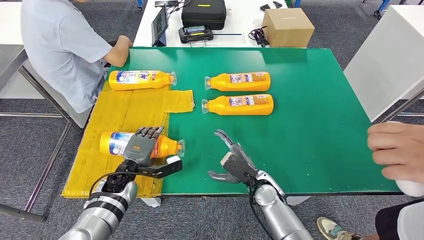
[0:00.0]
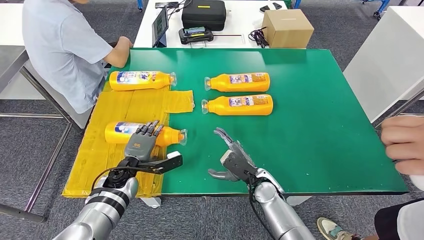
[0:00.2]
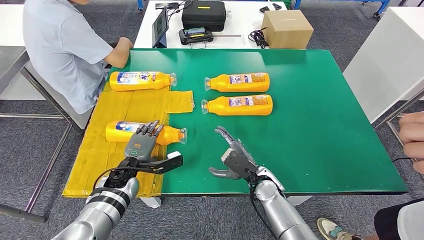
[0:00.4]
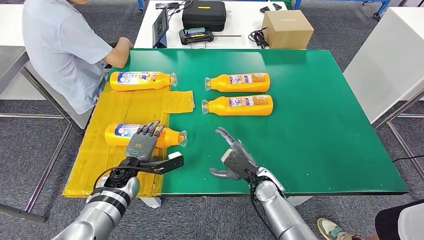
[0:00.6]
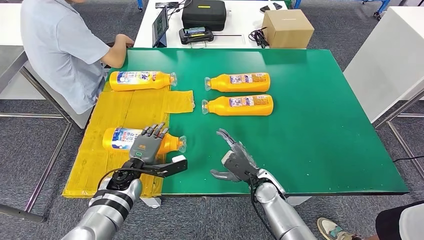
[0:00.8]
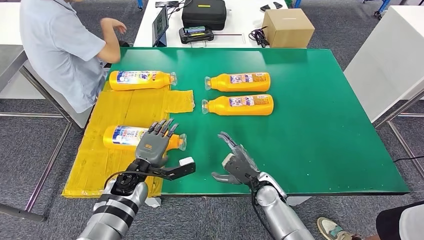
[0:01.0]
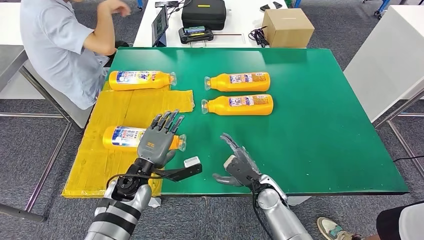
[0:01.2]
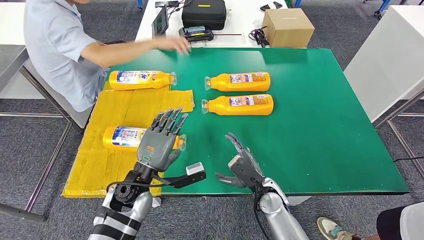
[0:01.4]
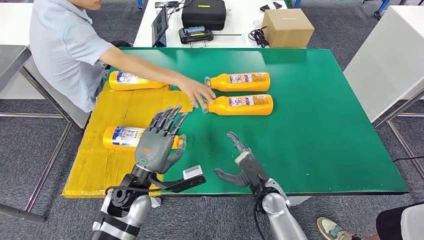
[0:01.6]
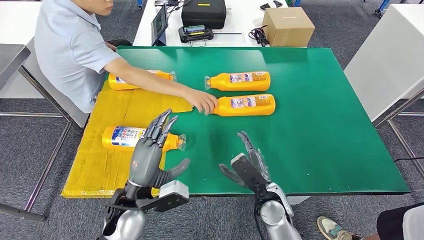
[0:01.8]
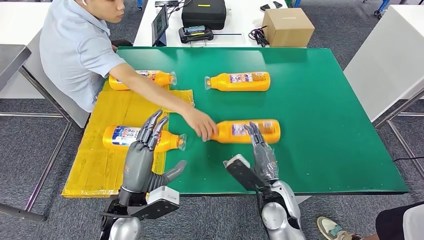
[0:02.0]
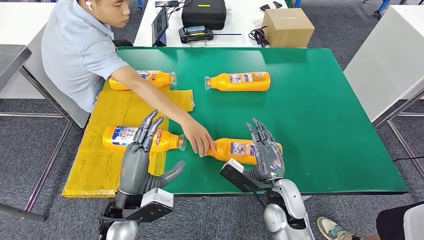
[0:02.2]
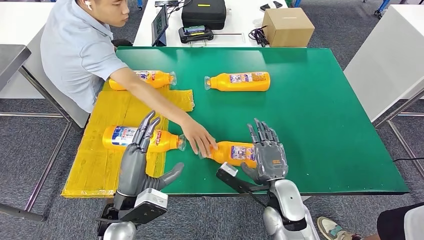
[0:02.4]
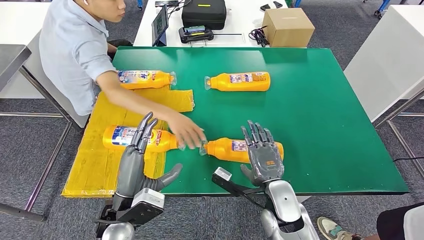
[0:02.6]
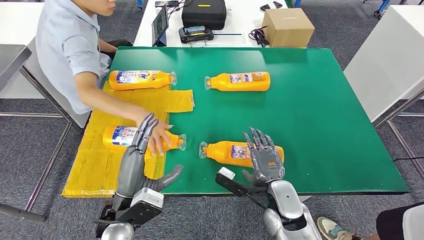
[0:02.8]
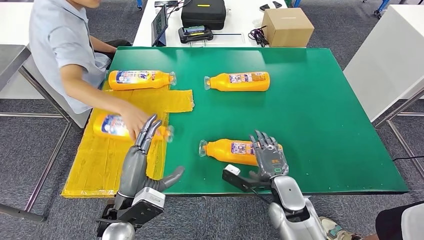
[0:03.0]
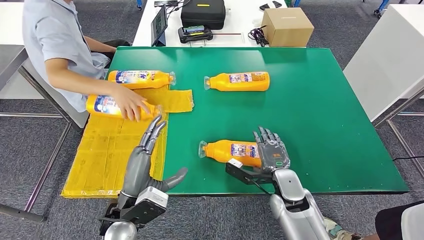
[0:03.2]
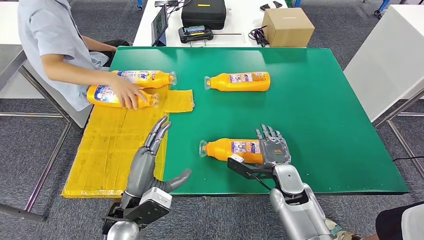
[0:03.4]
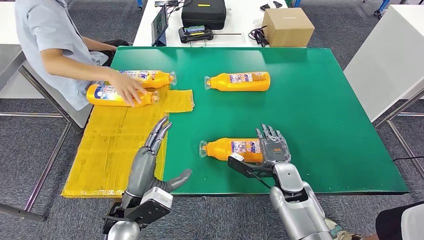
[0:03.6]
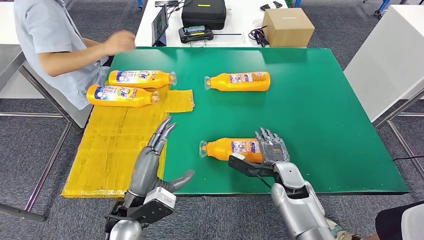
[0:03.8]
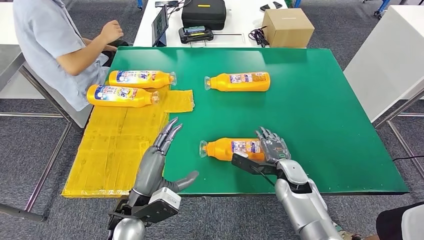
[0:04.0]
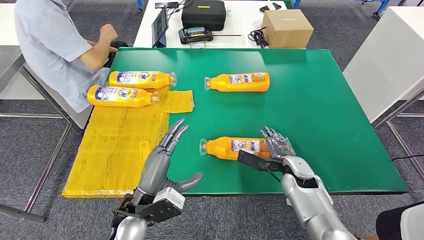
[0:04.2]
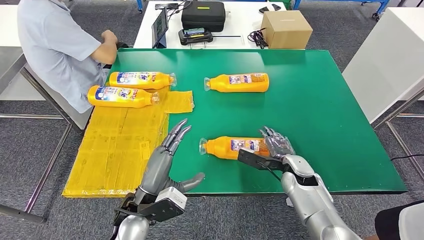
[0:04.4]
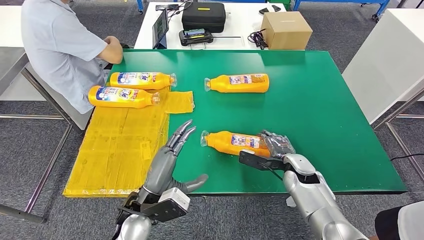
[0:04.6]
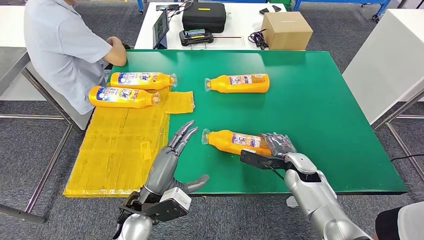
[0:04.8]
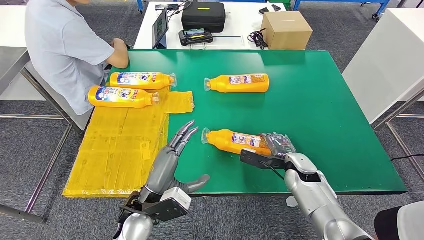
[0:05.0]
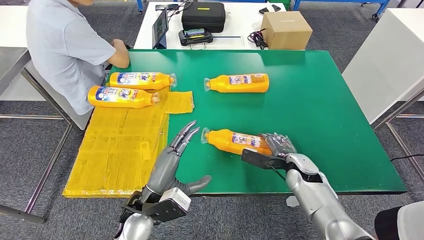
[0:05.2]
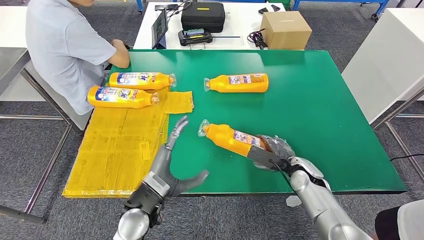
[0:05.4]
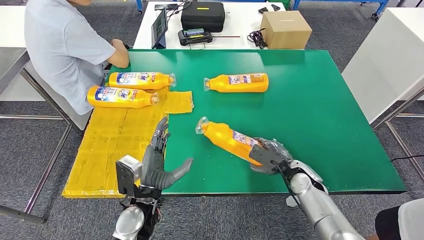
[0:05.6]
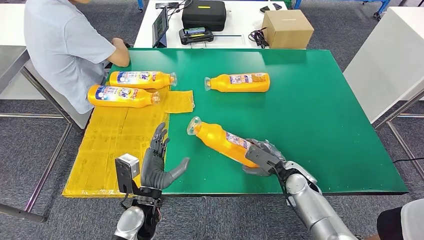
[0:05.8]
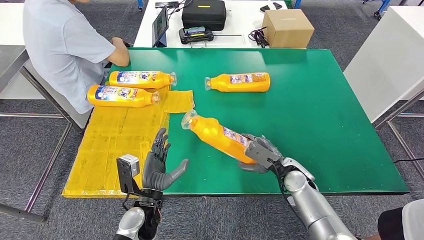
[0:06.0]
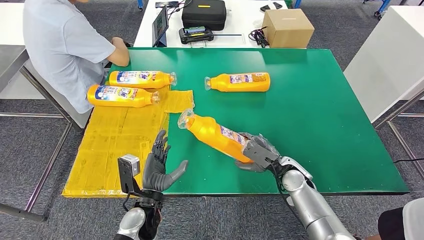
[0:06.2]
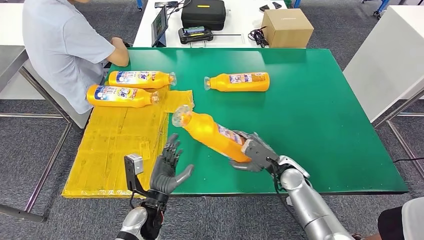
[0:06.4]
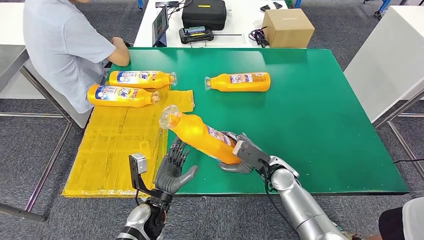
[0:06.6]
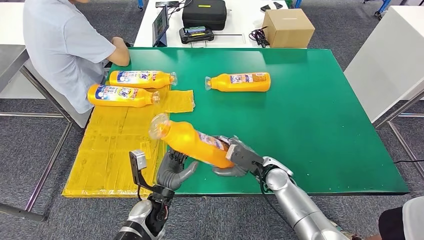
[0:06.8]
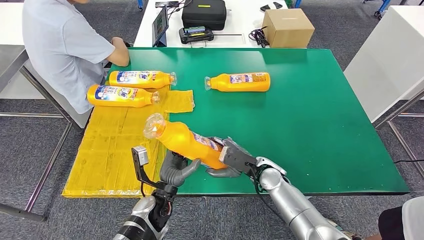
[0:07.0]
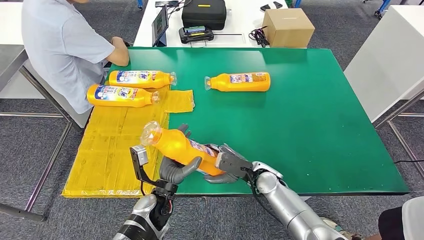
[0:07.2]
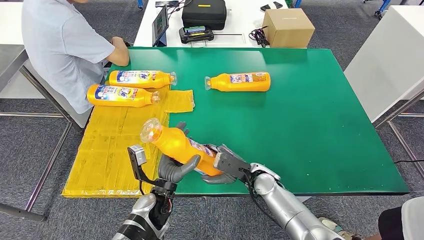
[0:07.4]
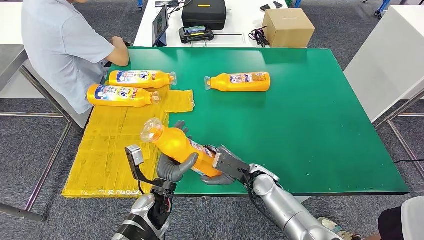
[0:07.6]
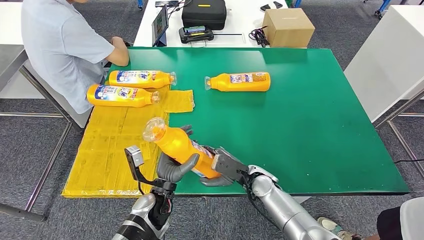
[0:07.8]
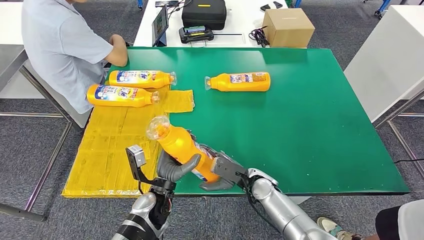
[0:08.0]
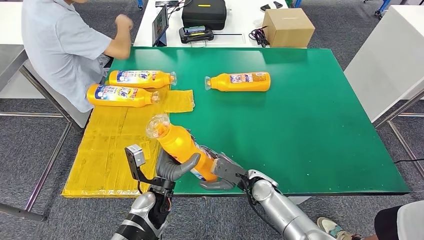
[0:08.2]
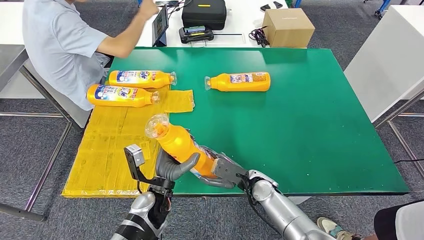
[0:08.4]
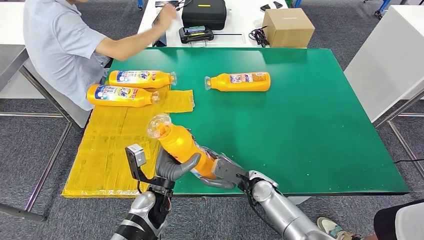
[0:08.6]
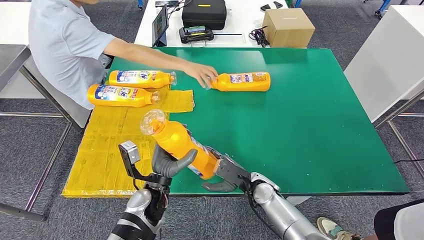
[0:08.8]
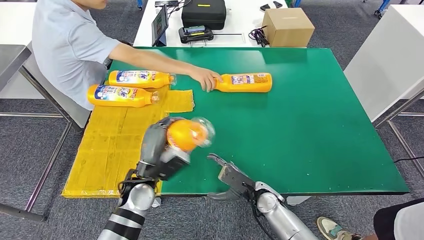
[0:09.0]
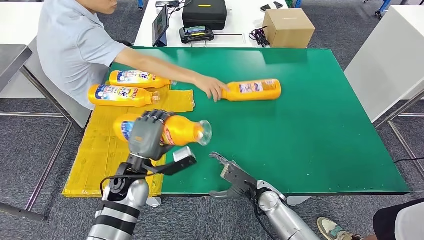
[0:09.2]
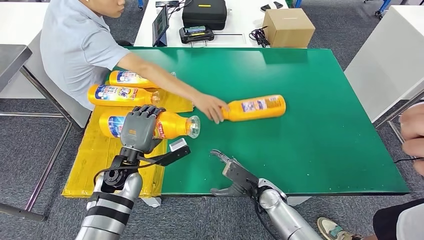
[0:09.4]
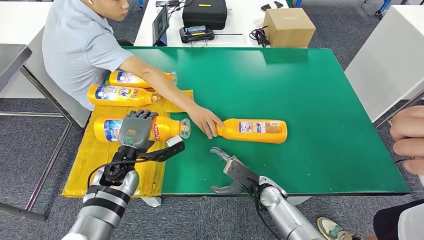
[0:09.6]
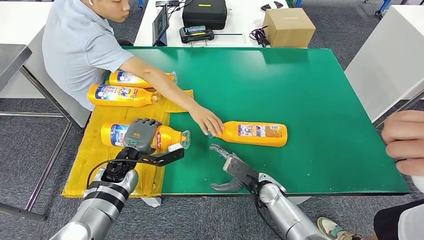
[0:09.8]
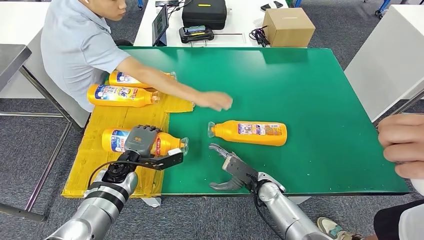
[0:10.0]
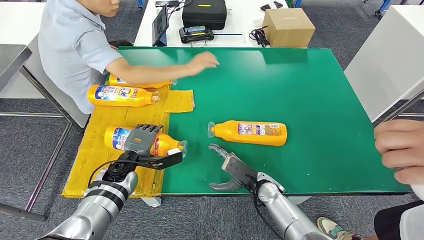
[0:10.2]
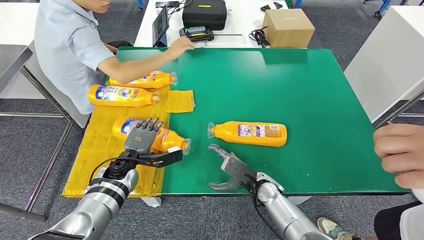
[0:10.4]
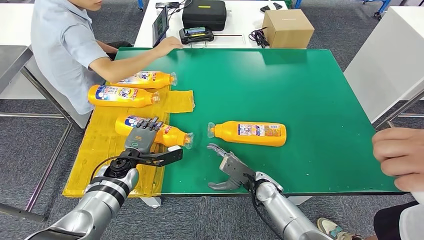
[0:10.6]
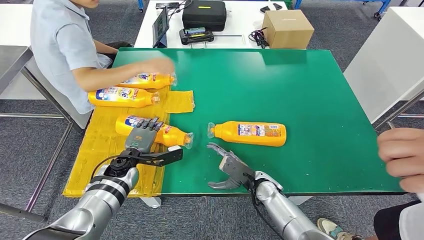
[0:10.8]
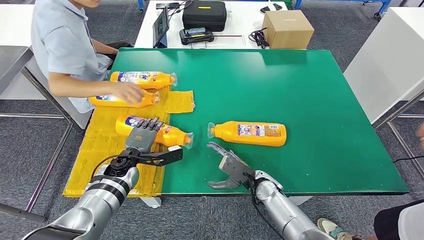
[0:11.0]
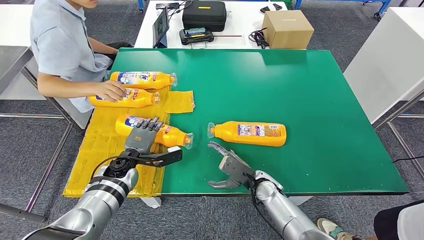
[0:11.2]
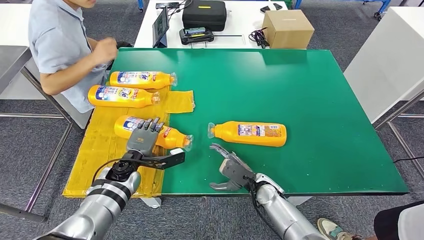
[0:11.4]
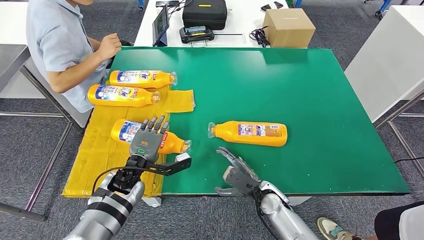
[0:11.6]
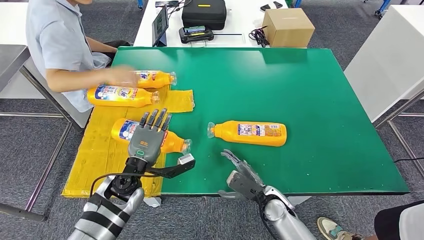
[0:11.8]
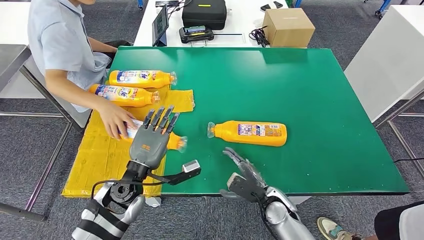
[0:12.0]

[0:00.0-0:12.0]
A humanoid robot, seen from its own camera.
Step, 0:00.4 to 0:06.2: Pick up the fast-moving consumer goods bottle from the table.
Step, 0:06.4 to 0:10.8: Flip the fast-moving consumer goods bottle to the front side.
0:00.0 to 0:01.6: The left hand travels upward, backward and to the right by some 10 cm.
0:01.6 to 0:03.0: The left hand travels backward by some 5 cm.
0:04.4 to 0:06.0: The left hand travels downward by about 5 cm.
0:06.0 to 0:07.6: The right hand shifts approximately 10 cm to the left.
0:07.6 to 0:09.0: The right hand shifts by some 5 cm, while the left hand heads upward, covering approximately 5 cm.
0:10.4 to 0:12.0: The left hand is displaced backward and upward by roughly 10 cm.

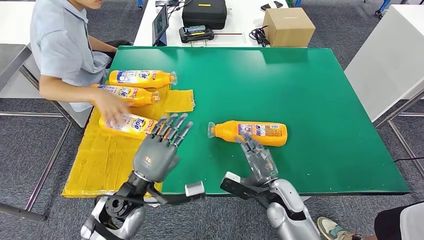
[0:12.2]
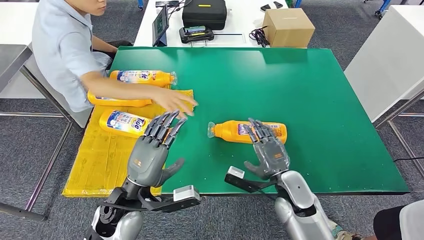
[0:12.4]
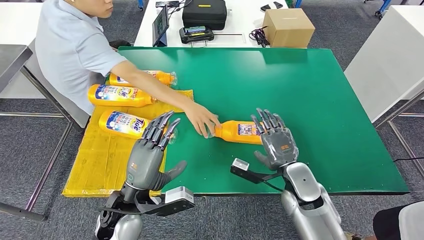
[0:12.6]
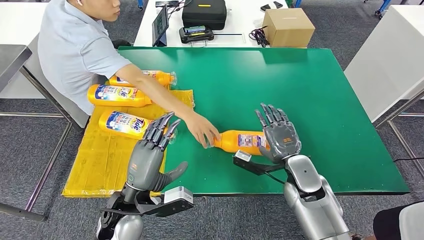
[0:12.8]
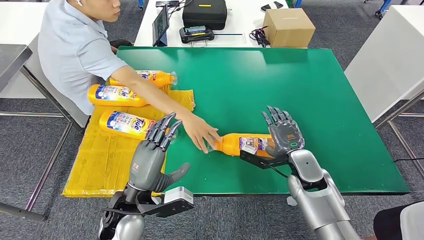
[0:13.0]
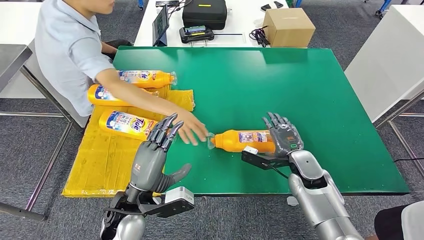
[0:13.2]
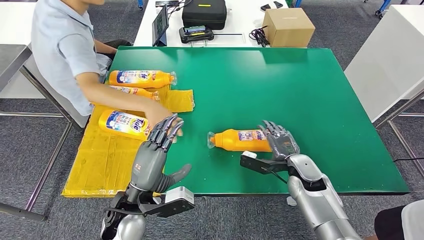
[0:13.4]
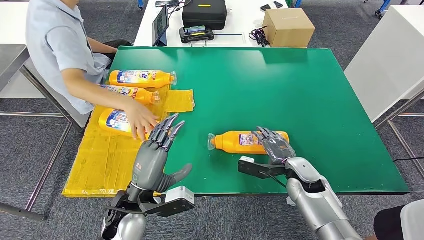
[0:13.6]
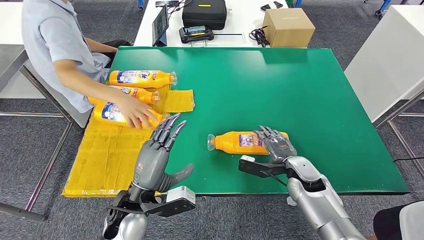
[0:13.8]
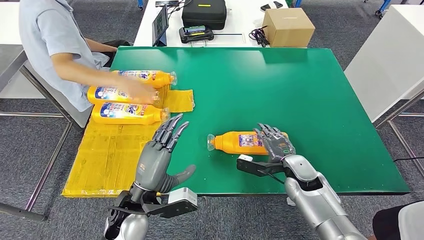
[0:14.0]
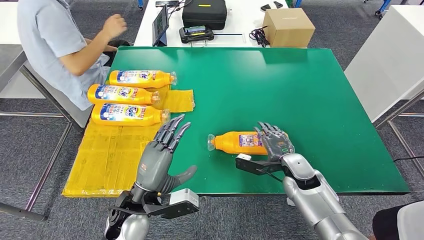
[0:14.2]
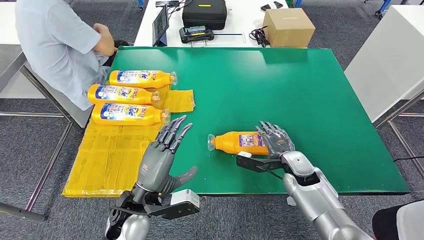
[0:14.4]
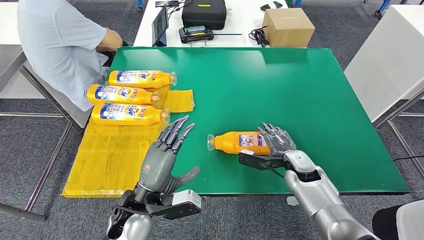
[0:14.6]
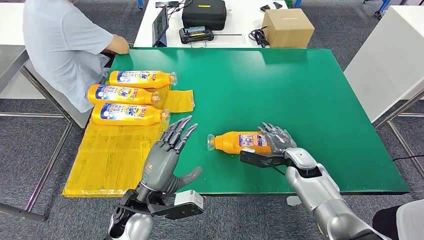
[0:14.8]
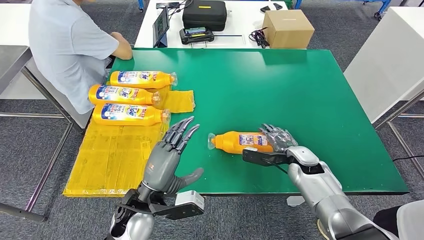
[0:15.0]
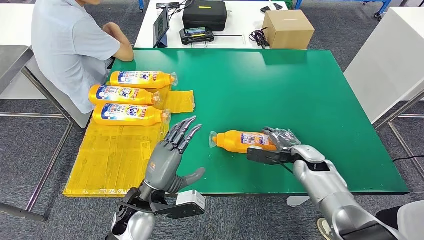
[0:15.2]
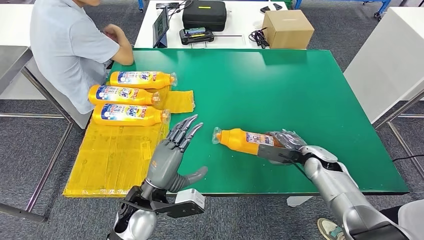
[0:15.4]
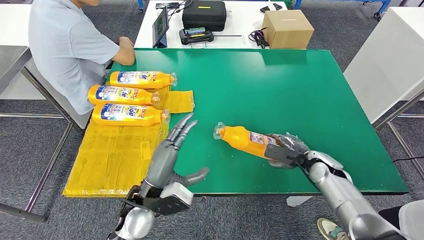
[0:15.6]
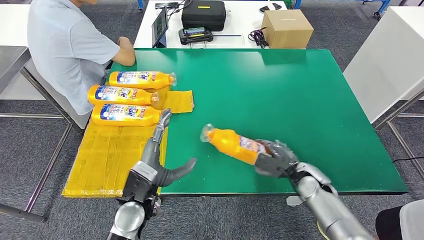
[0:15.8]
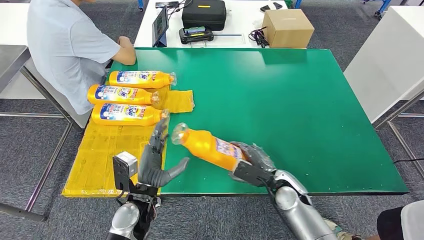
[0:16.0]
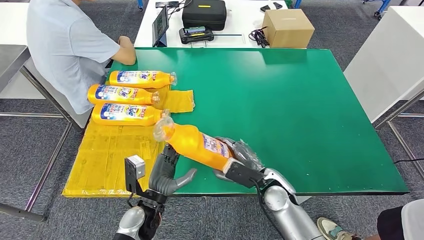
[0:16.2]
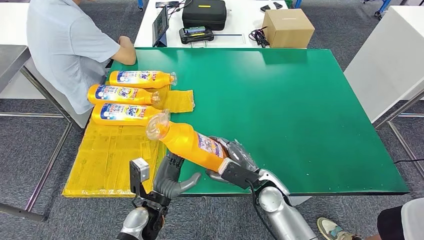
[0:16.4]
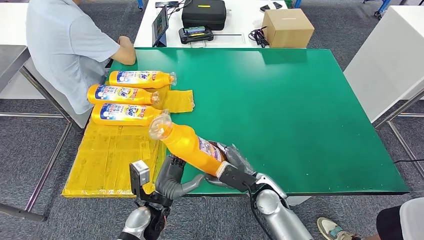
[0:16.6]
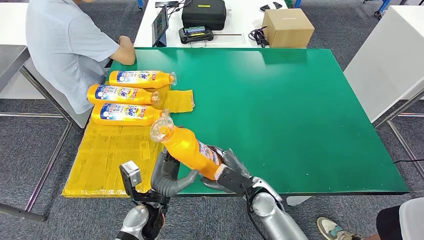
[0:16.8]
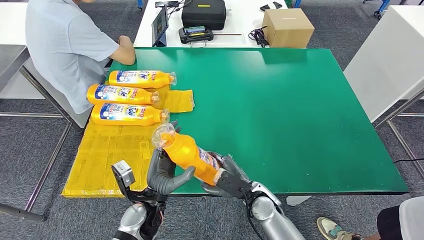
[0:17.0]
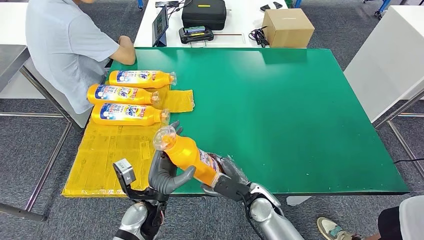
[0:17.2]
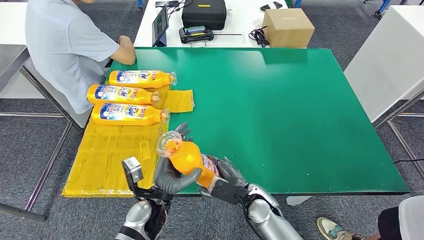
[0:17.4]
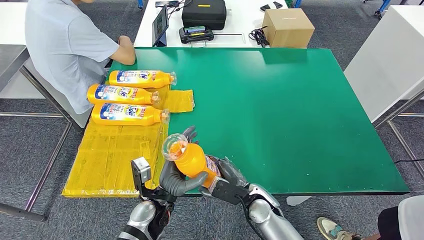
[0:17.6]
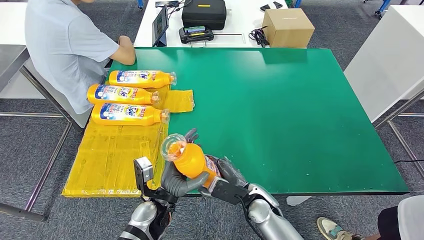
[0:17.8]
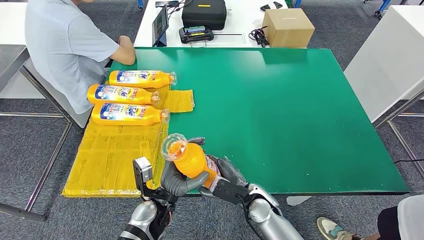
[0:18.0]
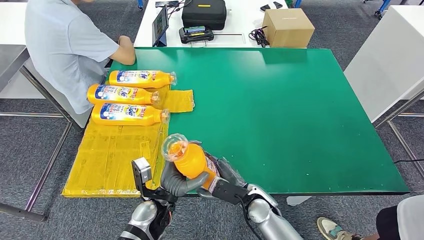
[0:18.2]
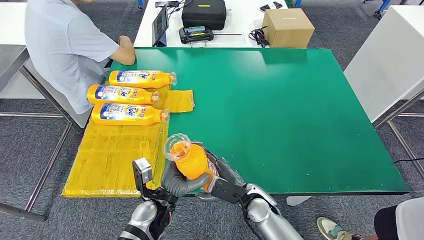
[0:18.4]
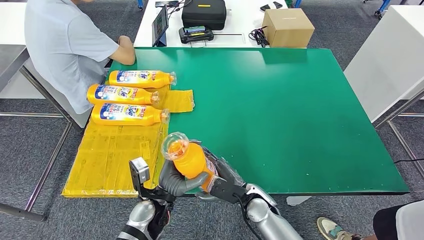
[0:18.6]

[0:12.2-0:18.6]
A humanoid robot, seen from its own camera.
Step, 0:12.2 to 0:16.2: Pick up the fast-moving consumer goods bottle from the table.
0:12.2 to 0:13.8: The right hand moves to the right and forward, approximately 10 cm.
0:17.0 to 0:18.6: The hands move only a little.
